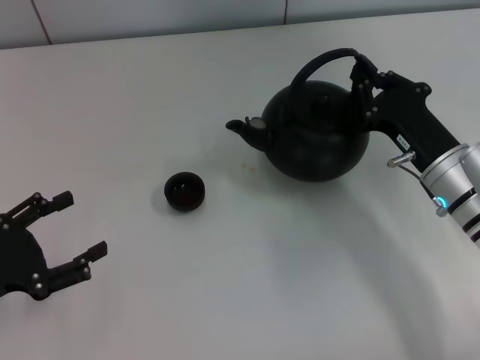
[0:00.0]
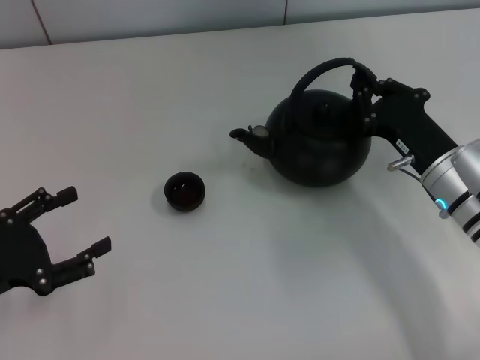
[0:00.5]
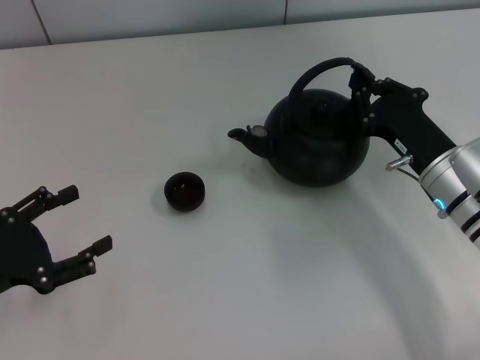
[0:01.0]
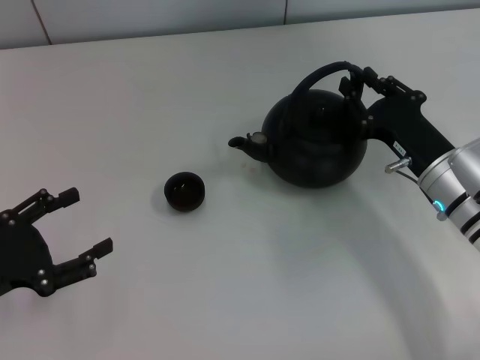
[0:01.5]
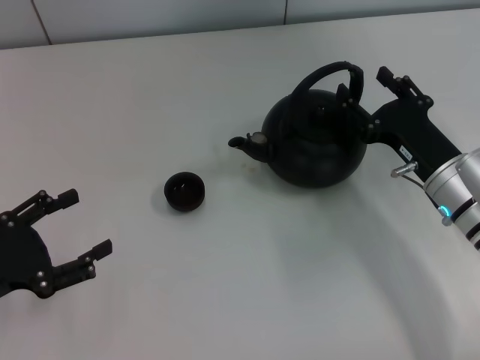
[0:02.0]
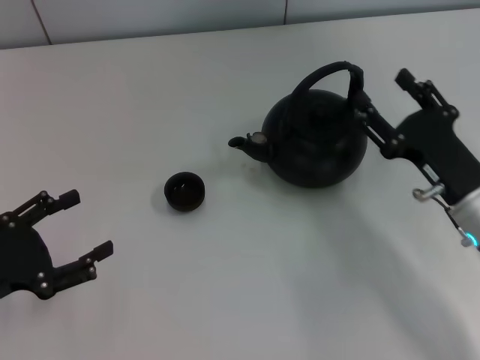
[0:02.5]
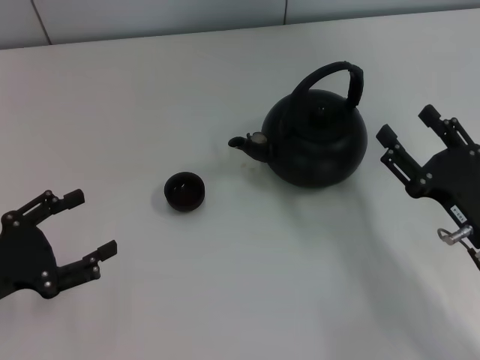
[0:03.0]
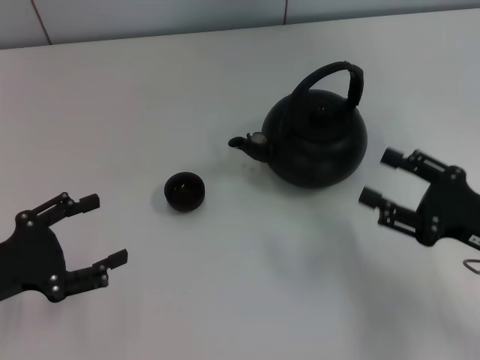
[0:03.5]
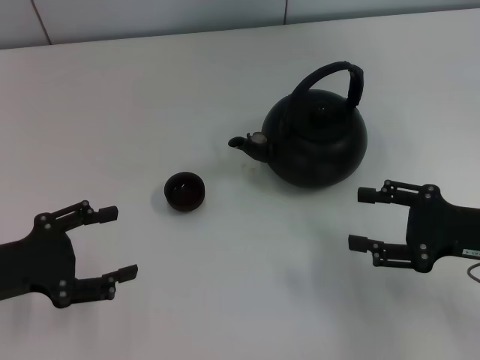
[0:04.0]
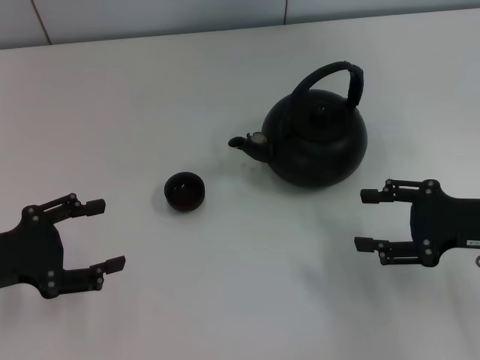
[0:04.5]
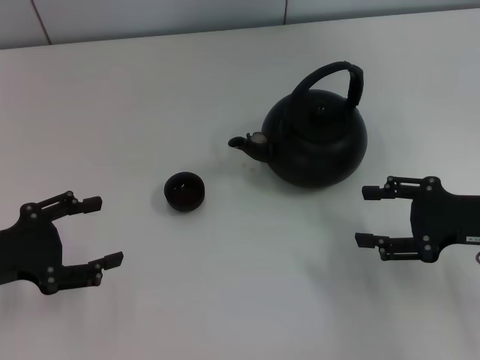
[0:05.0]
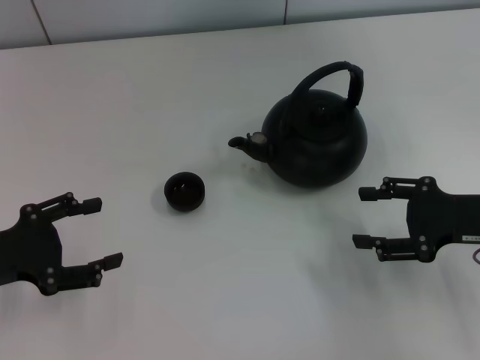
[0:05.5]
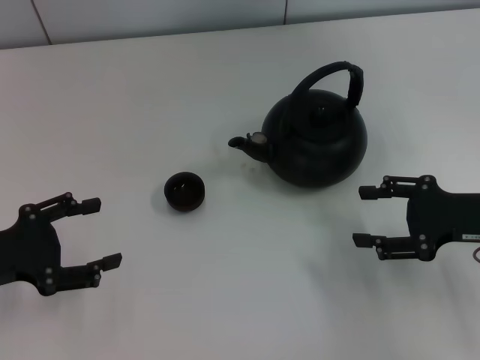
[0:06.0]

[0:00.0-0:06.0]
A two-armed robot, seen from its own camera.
Task of the whole recording: Grasp the handle of the teapot with one hand and pour tea into the teacup.
Step, 0:00.0 to 0:02.5: Put down the teapot with the right gripper.
0:00.0 to 0:02.0: The right gripper opens.
0:02.0 to 0:04.0: The right gripper moves to the right and backward, approximately 10 cm.
0:04.0 to 0:06.0: The grippers move only a little.
